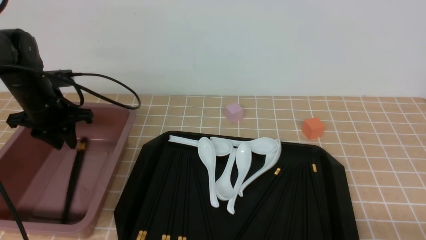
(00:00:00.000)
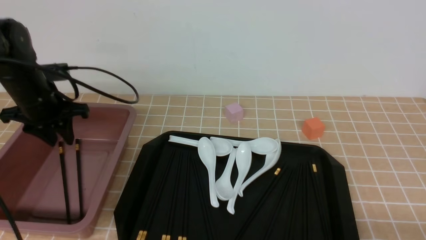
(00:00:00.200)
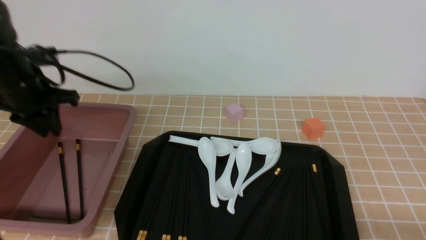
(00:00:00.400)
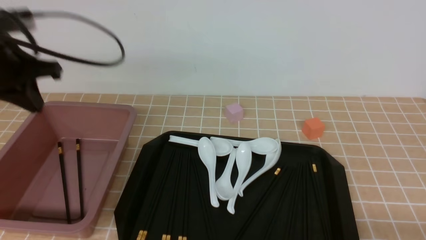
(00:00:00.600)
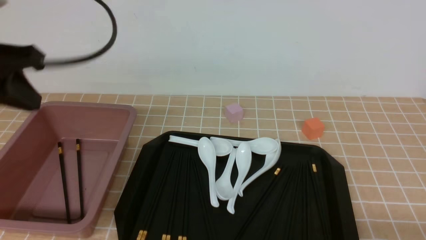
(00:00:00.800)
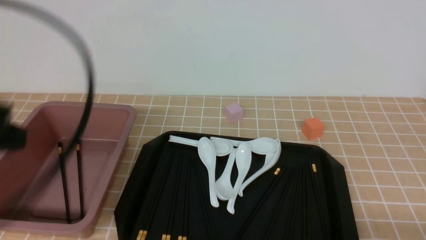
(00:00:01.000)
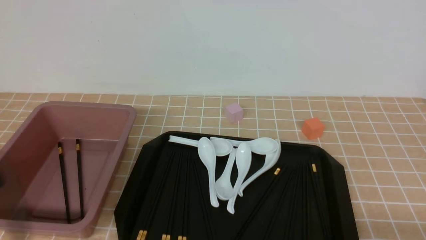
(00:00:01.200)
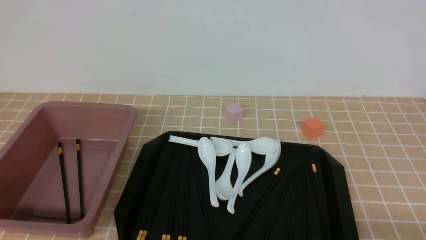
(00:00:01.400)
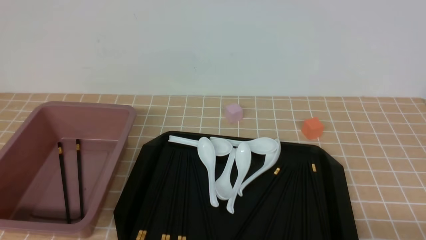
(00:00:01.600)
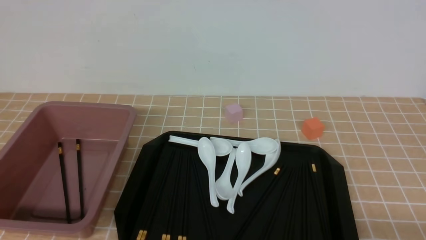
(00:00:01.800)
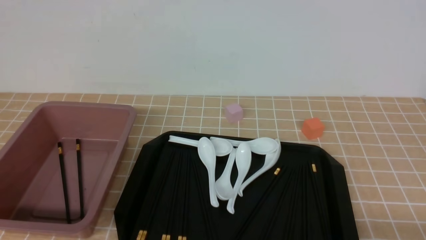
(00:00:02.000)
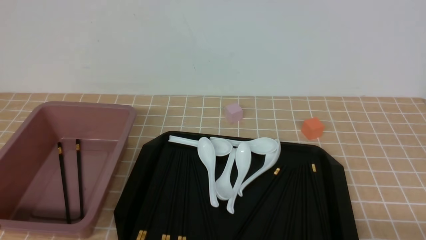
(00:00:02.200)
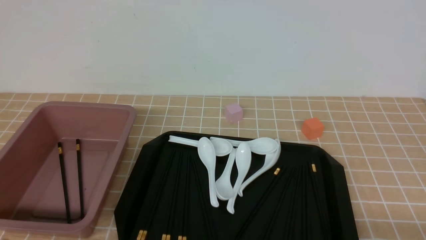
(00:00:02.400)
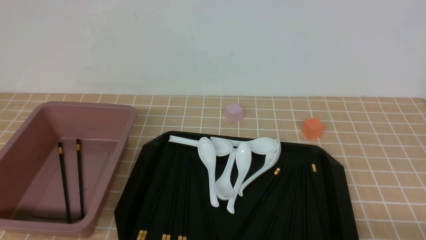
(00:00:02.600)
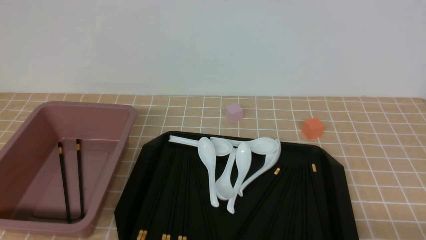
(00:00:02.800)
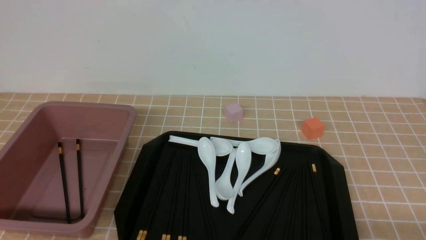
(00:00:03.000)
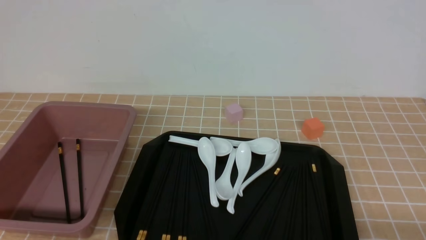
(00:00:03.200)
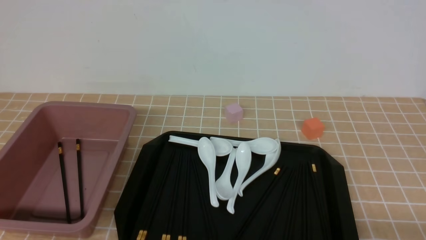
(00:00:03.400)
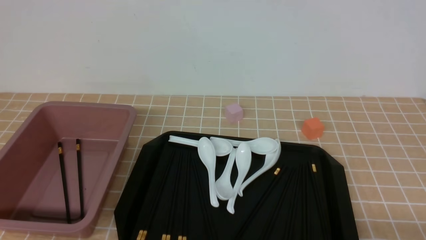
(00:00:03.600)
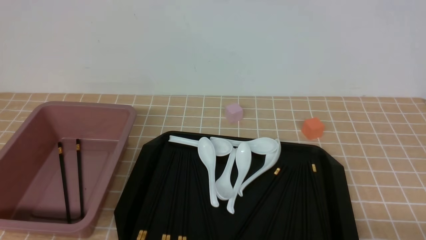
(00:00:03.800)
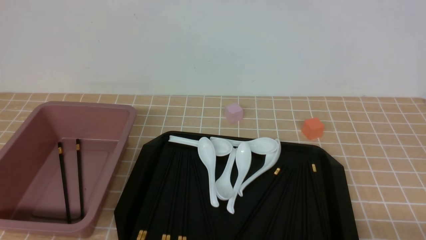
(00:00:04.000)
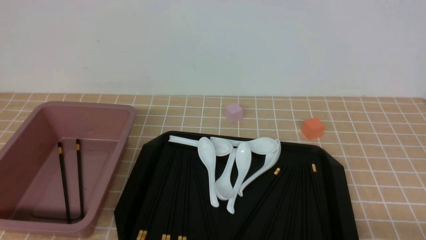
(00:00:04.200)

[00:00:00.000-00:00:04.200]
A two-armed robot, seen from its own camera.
00:00:00.000 to 00:00:01.400: The left gripper travels backward by about 40 cm, and closes up.
00:00:02.800 to 00:00:04.200: Both grippers stay put.

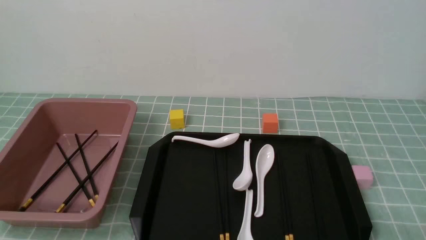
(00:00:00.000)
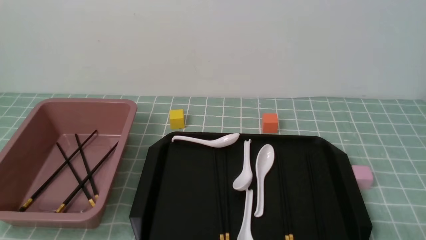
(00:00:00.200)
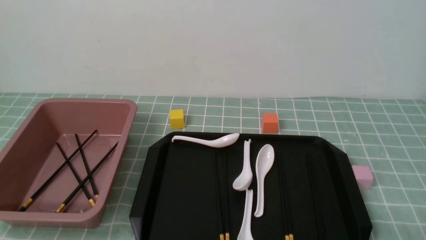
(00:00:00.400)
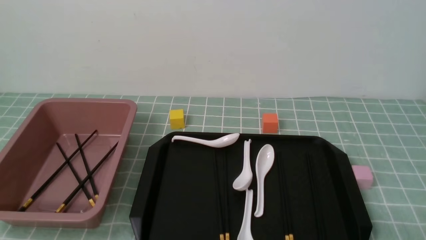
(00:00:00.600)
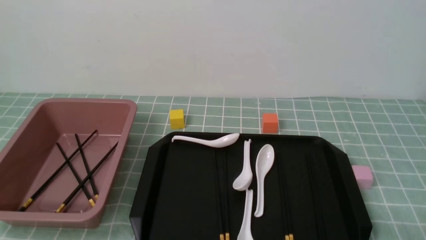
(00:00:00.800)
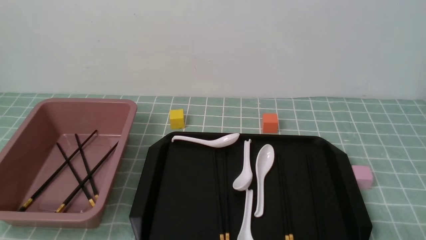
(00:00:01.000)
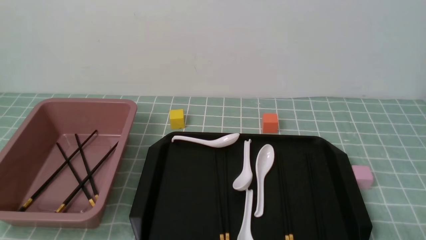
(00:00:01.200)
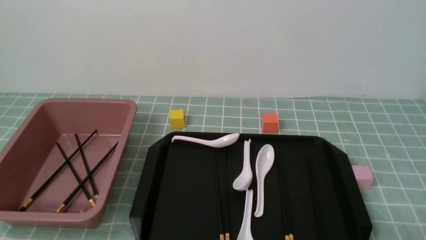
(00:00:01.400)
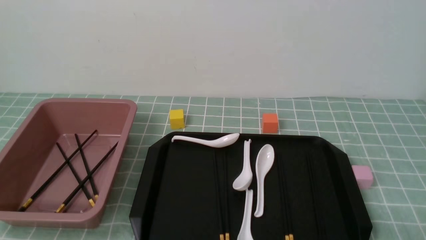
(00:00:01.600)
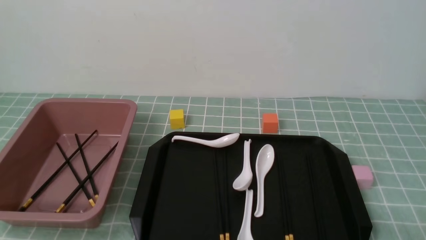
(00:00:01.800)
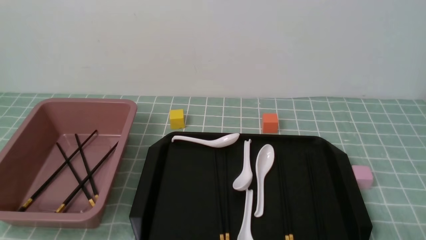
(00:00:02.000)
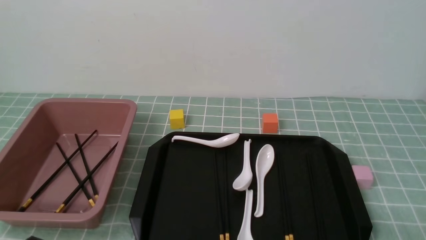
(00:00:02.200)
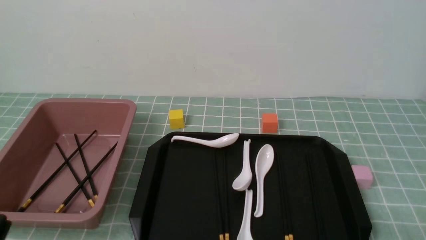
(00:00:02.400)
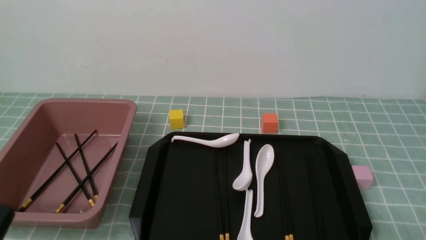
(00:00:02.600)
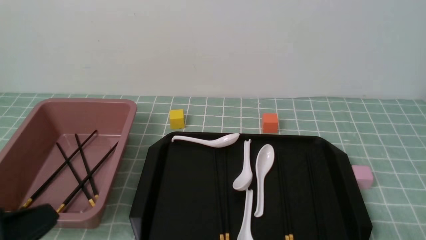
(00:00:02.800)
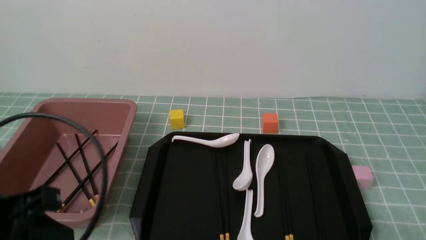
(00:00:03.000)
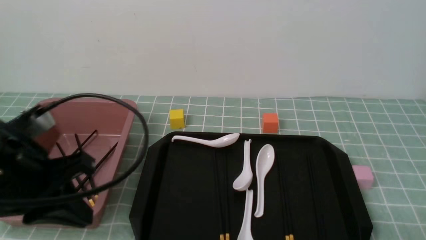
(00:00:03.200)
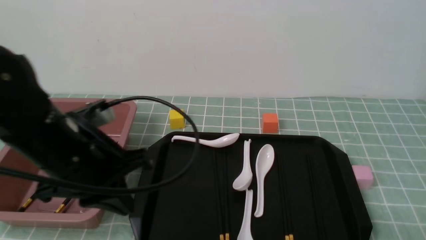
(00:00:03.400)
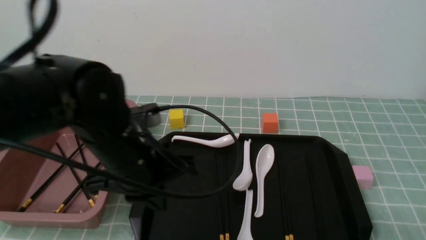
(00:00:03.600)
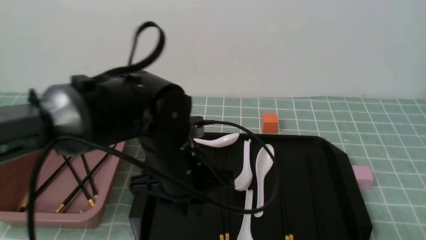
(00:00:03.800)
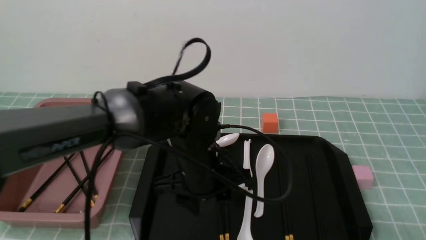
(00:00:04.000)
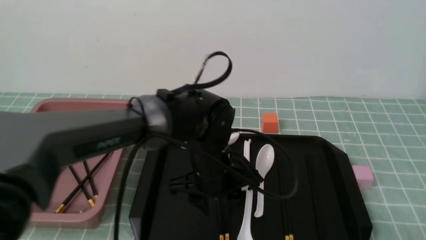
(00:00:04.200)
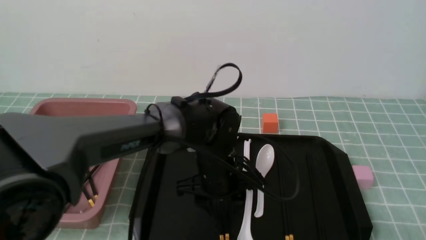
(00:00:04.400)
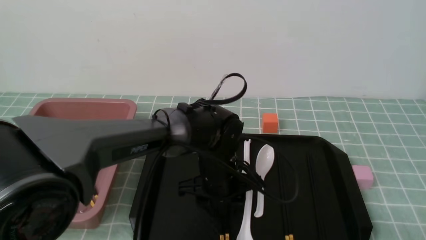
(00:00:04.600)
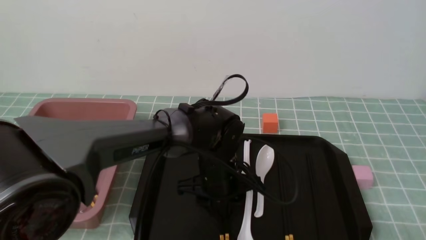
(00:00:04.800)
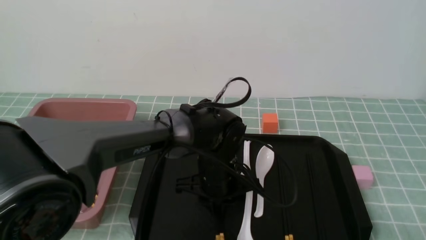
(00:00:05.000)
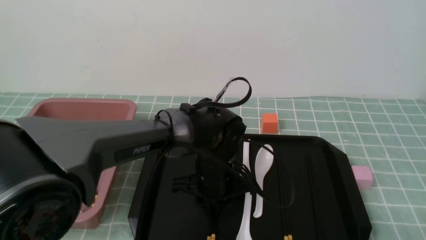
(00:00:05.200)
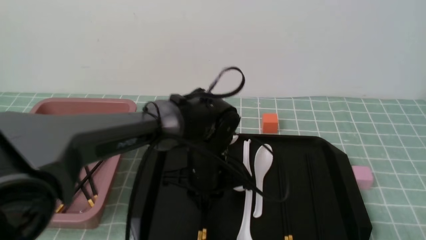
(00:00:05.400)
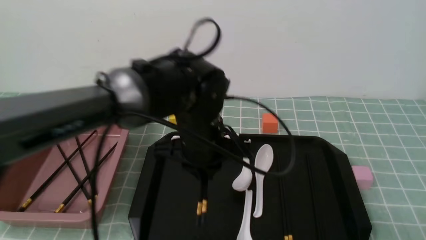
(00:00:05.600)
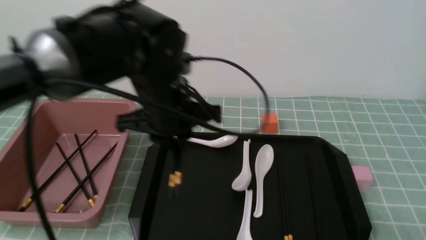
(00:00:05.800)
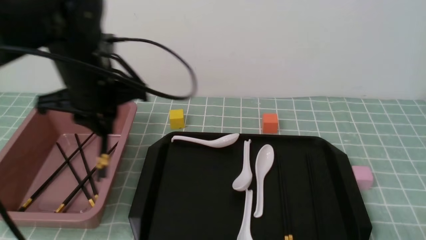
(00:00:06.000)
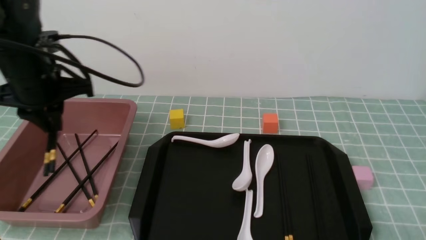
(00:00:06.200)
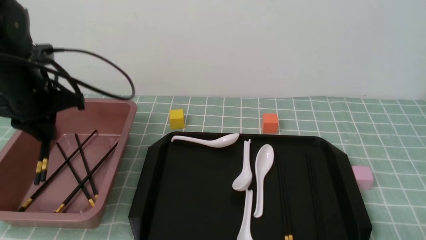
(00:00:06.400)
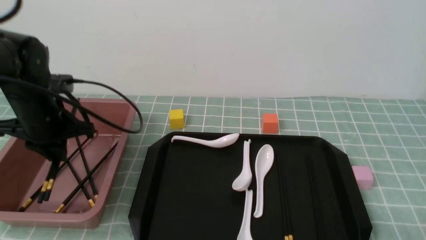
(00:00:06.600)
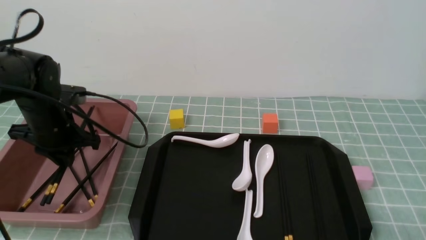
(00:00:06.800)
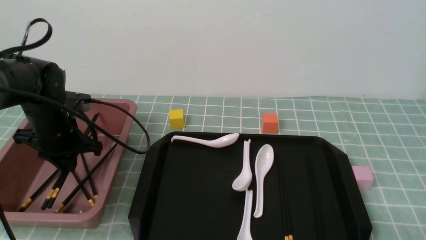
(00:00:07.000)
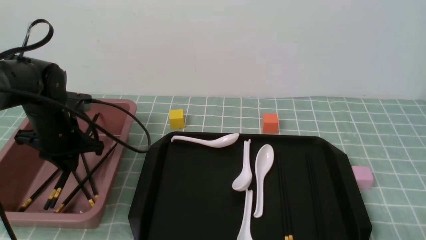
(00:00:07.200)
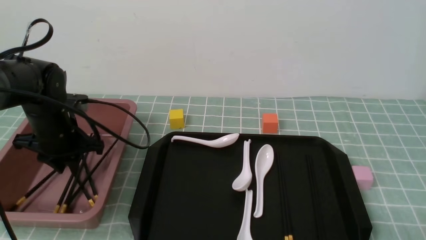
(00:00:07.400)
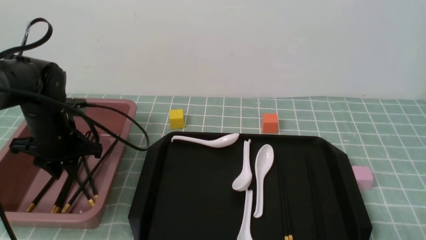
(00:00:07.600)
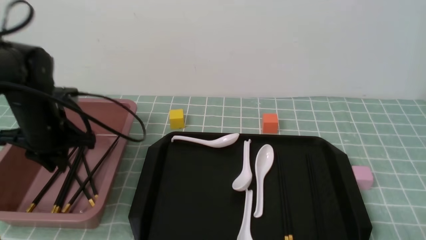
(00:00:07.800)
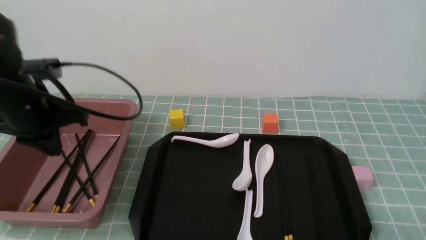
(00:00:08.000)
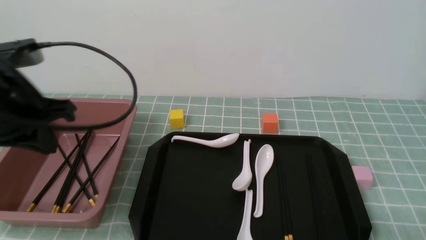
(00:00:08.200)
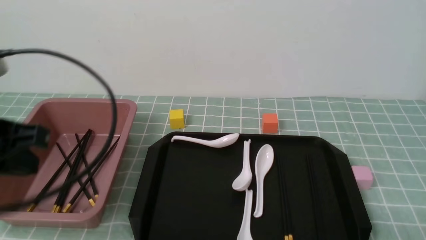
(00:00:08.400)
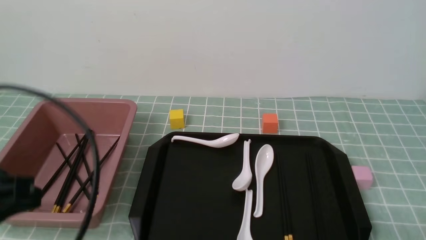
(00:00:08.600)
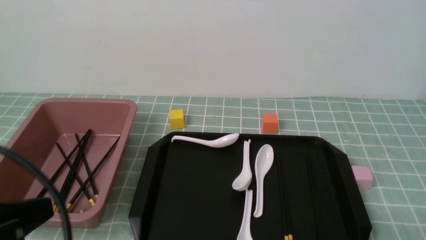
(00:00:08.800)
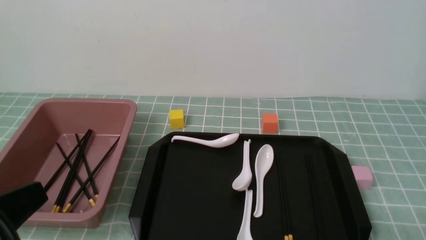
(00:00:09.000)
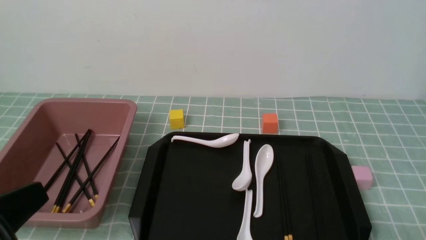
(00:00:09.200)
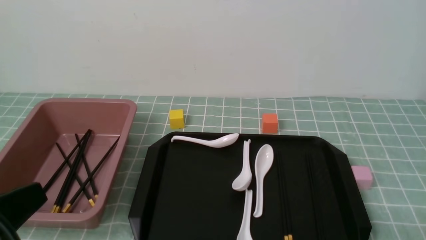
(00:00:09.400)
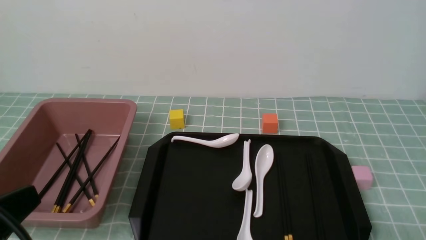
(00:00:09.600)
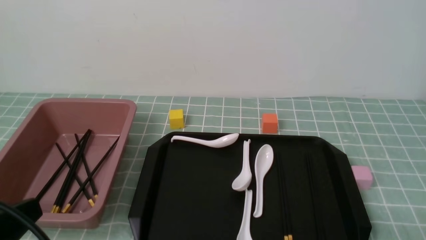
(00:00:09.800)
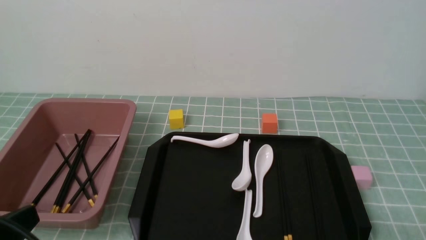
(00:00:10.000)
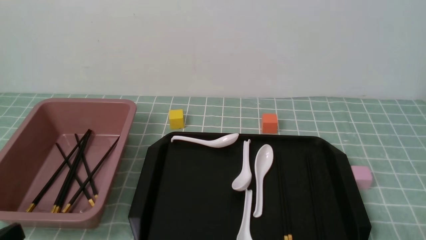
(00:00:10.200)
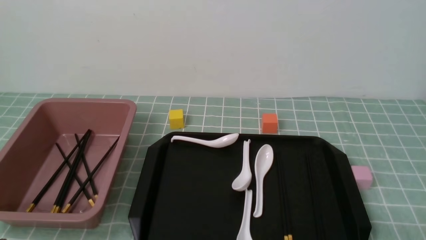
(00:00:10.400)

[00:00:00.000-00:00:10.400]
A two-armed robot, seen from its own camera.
Step, 00:00:00.000 to 00:00:05.600: use the left arm to grab a pair of chopsticks.
Step, 00:00:05.800 to 00:00:08.000: use the left arm to put the chopsticks into the lunch box.
00:00:00.000 to 00:00:01.400: Both grippers stay about where they are.
00:00:01.400 to 00:00:03.000: The left gripper moves upward and forward, about 15 cm.
00:00:03.000 to 00:00:04.400: The left gripper goes approximately 30 cm to the right, forward and downward, and opens.
00:00:04.400 to 00:00:06.000: The left gripper shifts roughly 25 cm to the left and upward, and closes its fingers.
00:00:06.000 to 00:00:07.400: The left gripper heads downward and to the left, covering roughly 15 cm.
00:00:07.400 to 00:00:09.000: The left gripper goes some 30 cm backward, and closes.
00:00:09.000 to 00:00:10.400: The left gripper heads downward, covering roughly 10 cm.

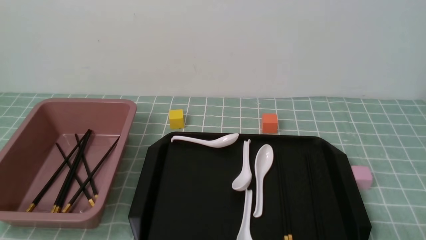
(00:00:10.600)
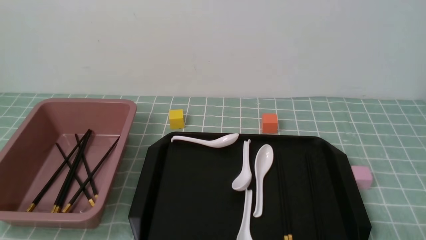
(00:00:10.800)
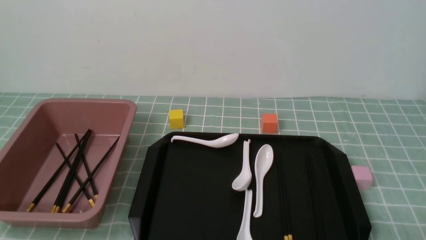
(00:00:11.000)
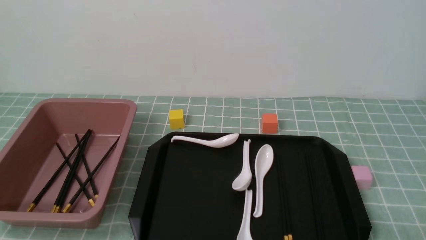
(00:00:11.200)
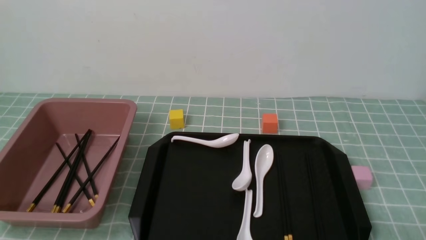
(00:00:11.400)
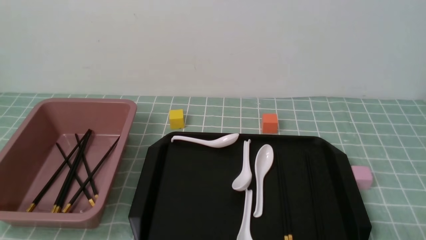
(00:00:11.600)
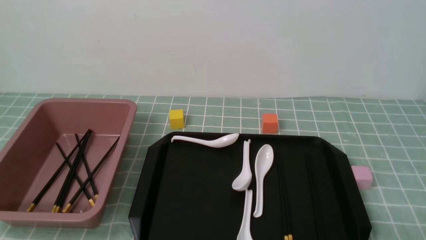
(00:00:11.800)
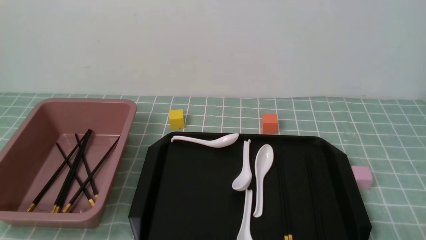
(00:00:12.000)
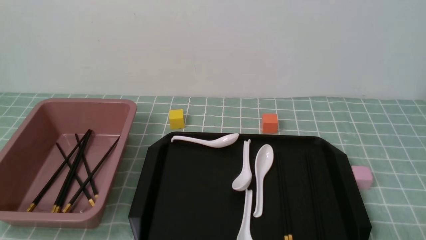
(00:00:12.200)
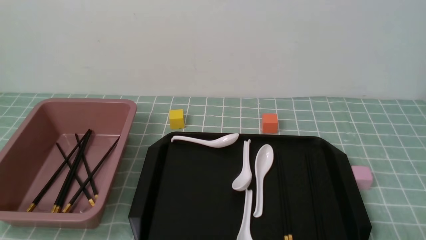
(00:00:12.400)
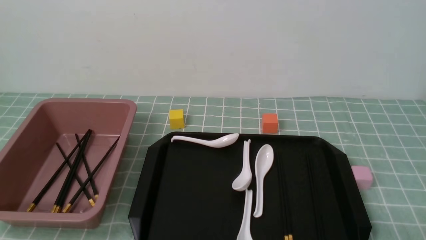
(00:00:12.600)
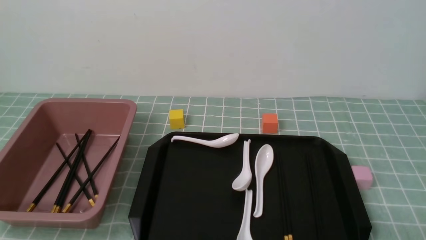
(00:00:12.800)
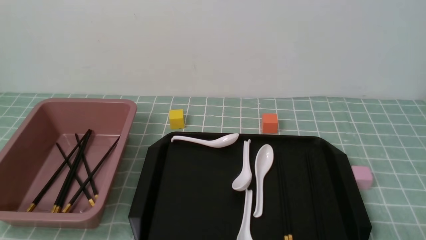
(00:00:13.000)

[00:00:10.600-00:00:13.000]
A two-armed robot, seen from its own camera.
00:00:10.600 to 00:00:13.000: The two grippers keep their place.
